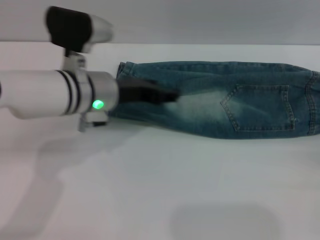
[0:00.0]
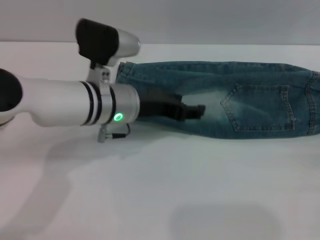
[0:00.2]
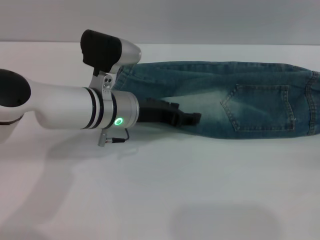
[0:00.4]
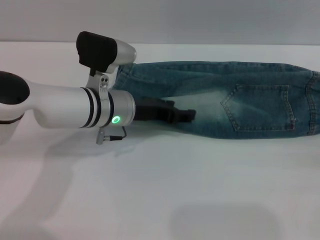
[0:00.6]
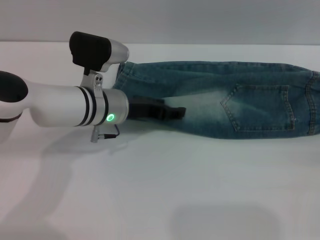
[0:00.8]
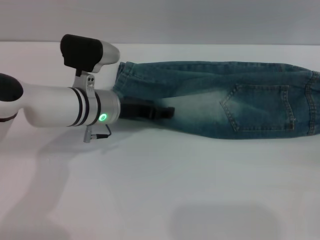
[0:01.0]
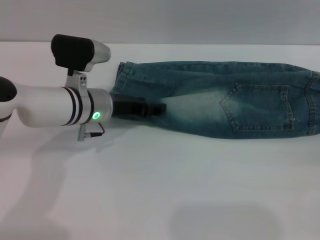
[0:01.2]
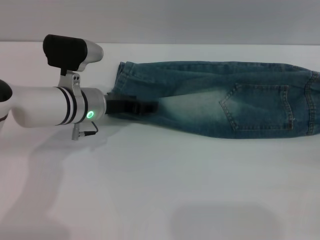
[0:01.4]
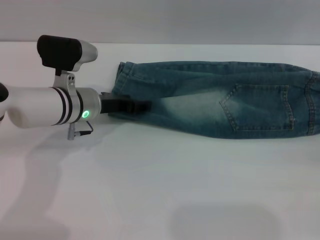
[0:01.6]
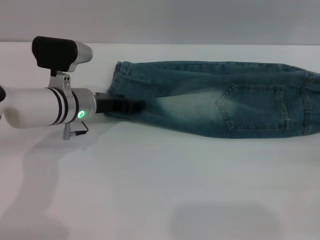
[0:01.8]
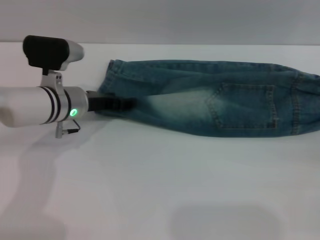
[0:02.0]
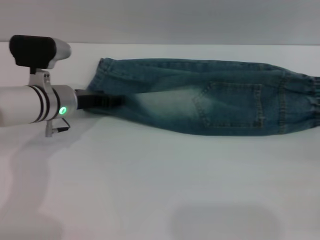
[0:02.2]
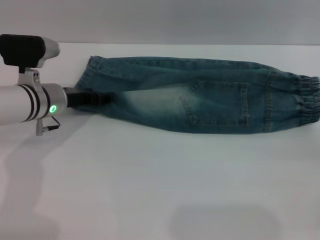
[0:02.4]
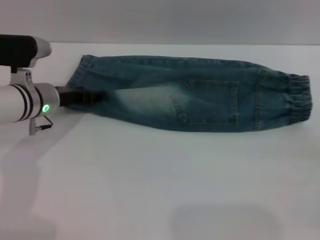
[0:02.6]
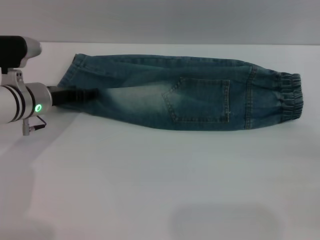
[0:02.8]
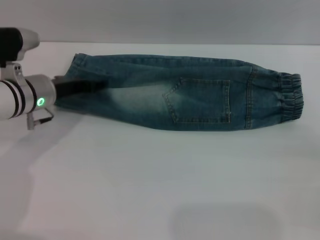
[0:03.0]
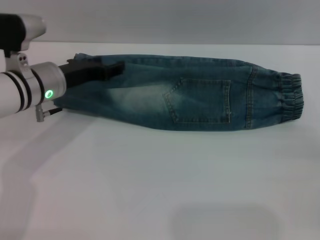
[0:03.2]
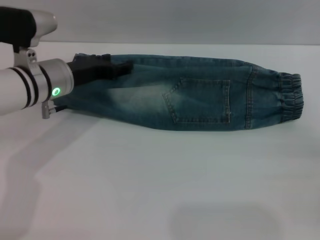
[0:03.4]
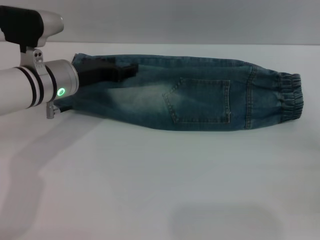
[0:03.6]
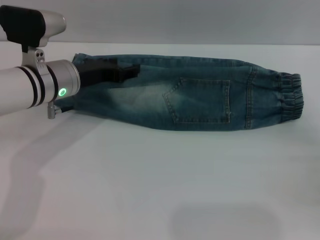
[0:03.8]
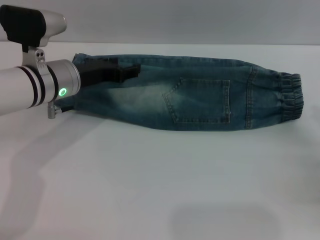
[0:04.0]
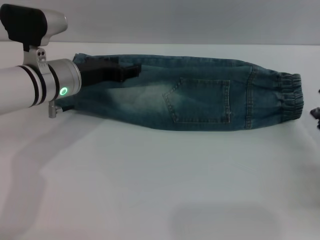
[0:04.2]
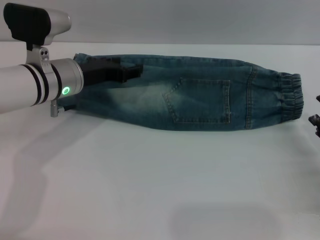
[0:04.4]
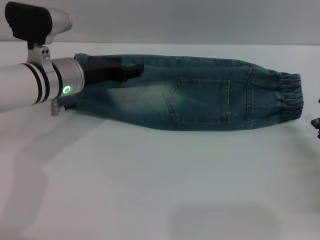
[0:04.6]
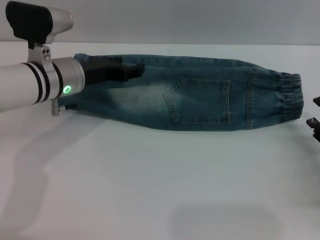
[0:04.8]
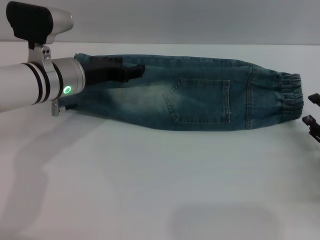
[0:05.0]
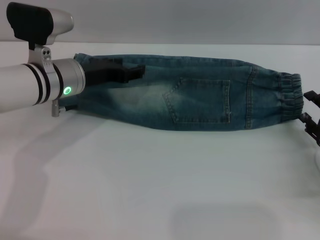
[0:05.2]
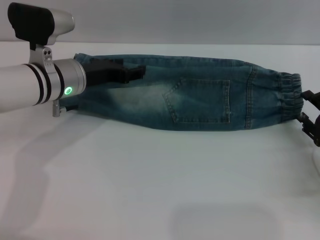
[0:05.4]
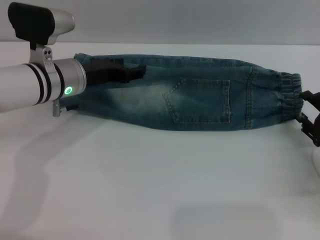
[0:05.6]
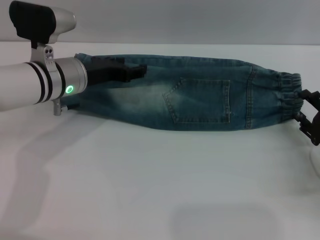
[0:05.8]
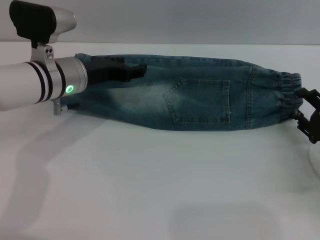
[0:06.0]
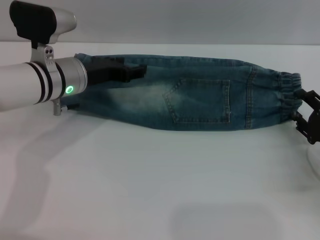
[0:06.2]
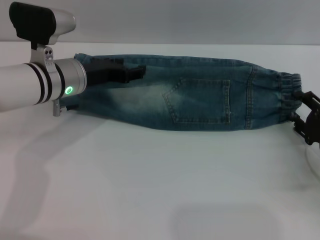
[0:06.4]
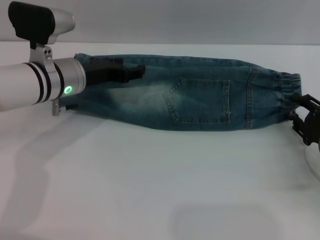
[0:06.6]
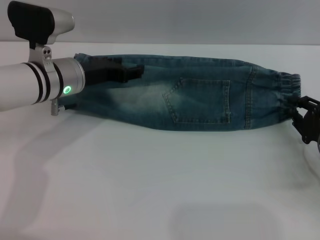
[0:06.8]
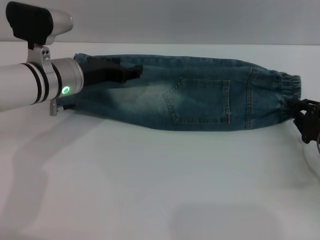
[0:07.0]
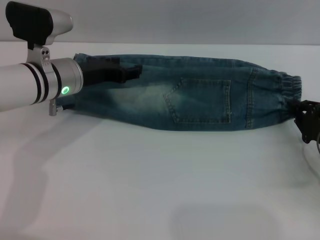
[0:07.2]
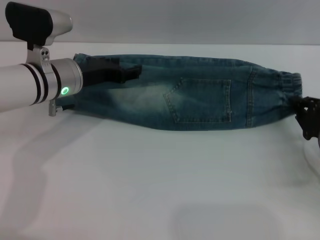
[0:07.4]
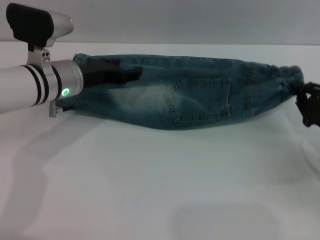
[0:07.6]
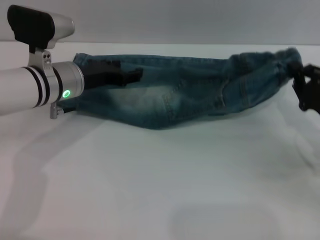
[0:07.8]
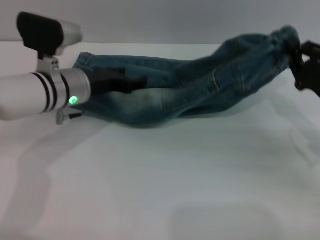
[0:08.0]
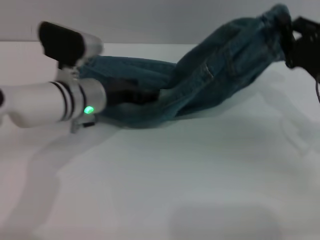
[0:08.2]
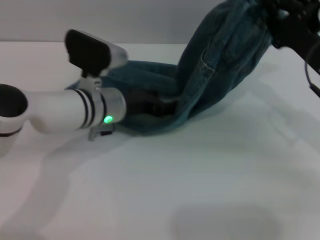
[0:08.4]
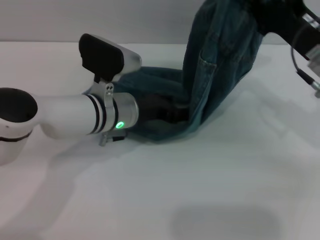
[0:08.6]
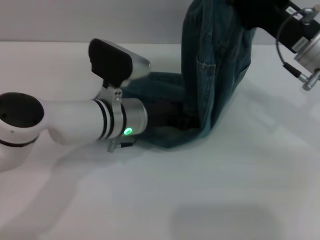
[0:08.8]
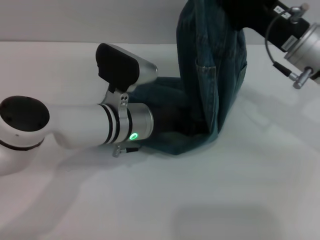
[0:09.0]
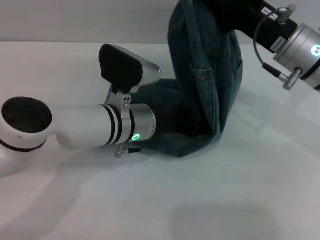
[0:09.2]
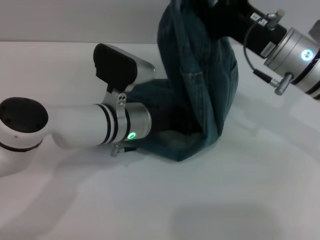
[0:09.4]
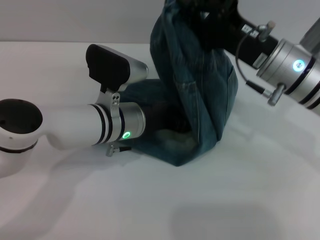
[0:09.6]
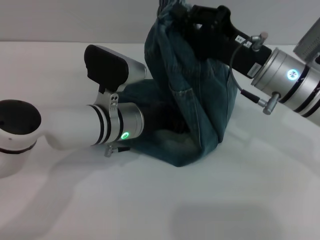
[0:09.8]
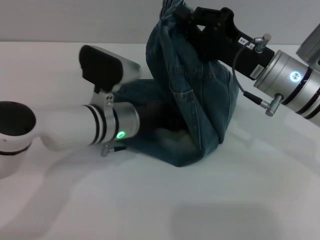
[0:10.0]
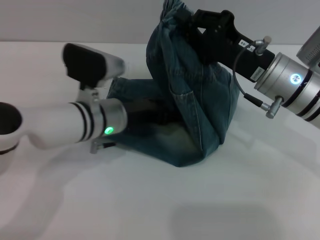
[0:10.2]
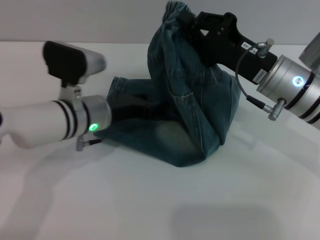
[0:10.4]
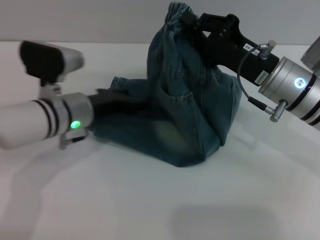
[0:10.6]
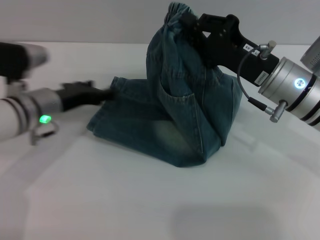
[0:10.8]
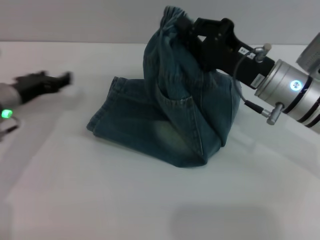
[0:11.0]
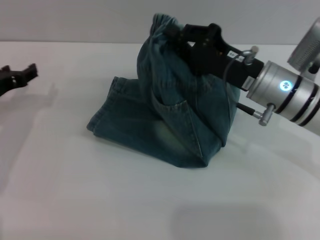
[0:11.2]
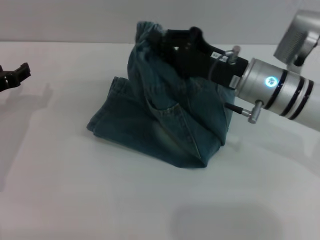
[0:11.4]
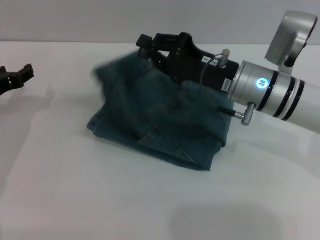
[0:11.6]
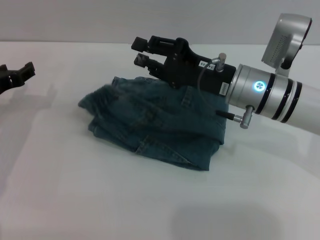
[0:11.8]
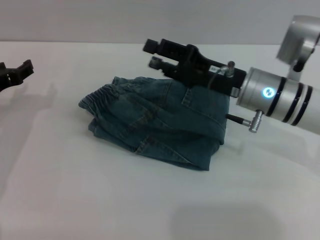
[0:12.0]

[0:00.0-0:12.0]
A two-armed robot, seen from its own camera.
Step, 0:00.0 to 0:11.8: Fold the pants from right to left with the right gripper.
0:00.0 to 0:01.6: The left gripper moves downward, some 5 cm.
0:01.6 to 0:03.0: The left gripper travels to the left by roughly 5 cm.
0:03.0 to 0:04.4: The right gripper moves to the left, roughly 5 cm. Meanwhile the left gripper shifts by about 5 cm.
0:04.4 to 0:06.0: The grippers make only small movements.
0:06.0 to 0:07.6: The right gripper closes.
0:07.6 to 0:09.0: The left gripper travels to the right by about 10 cm. The right gripper goes approximately 20 cm upward, to the left and forward.
0:09.0 to 0:10.4: The left gripper heads to the left, covering about 5 cm.
0:10.4 to 0:12.0: The left gripper travels to the left by approximately 15 cm, while the right gripper opens its fingers.

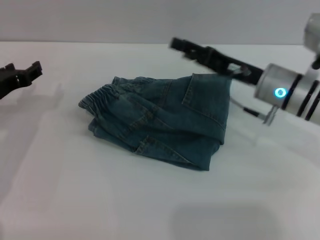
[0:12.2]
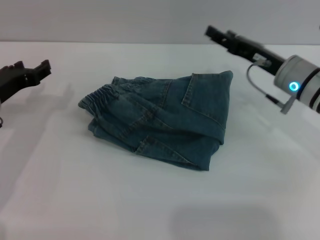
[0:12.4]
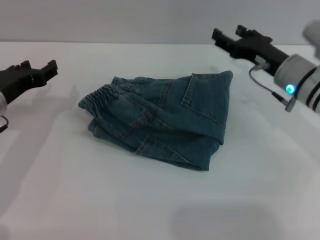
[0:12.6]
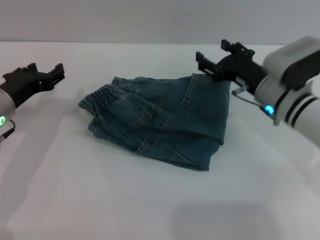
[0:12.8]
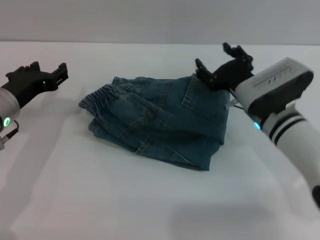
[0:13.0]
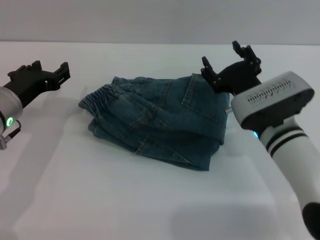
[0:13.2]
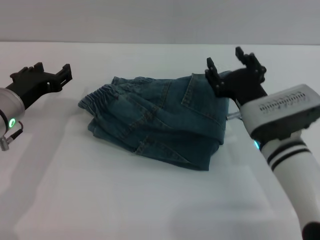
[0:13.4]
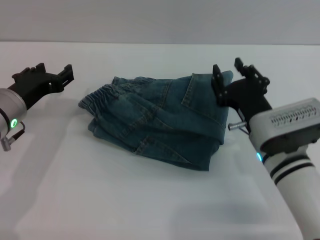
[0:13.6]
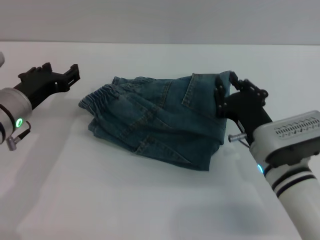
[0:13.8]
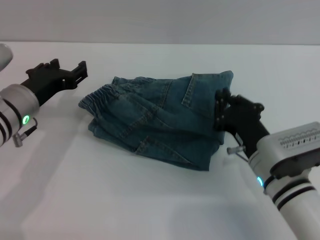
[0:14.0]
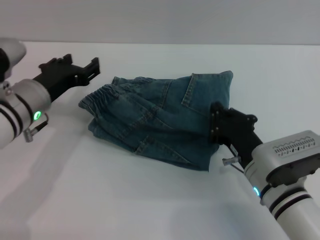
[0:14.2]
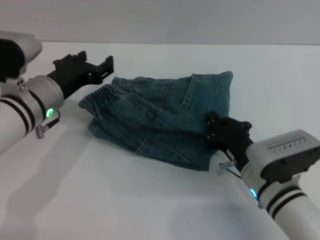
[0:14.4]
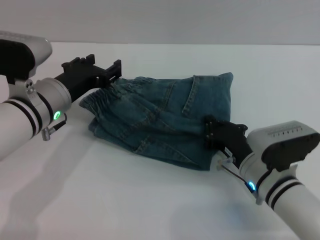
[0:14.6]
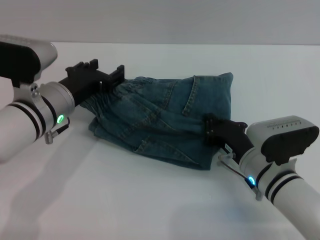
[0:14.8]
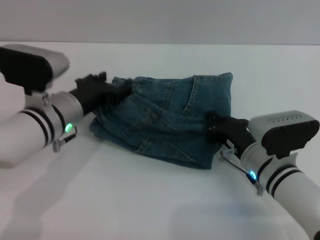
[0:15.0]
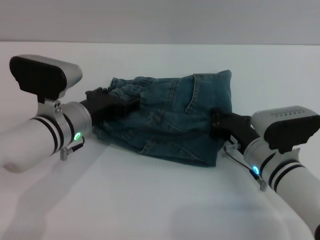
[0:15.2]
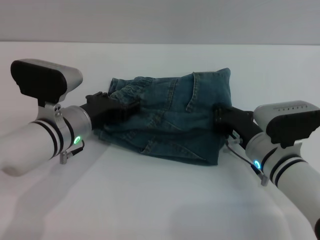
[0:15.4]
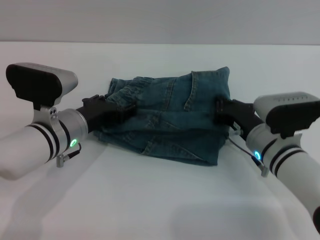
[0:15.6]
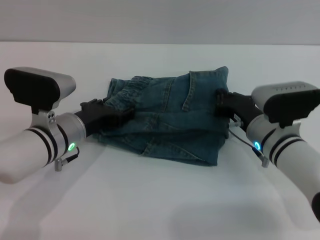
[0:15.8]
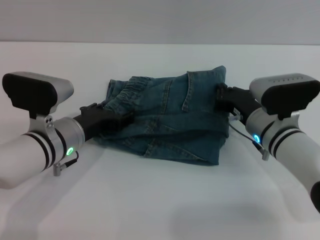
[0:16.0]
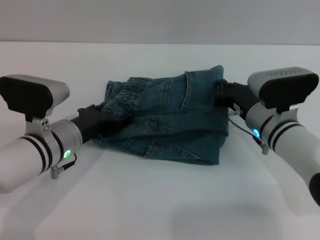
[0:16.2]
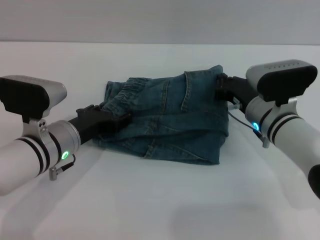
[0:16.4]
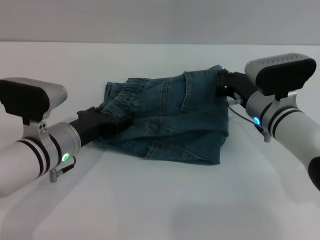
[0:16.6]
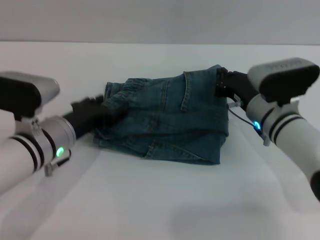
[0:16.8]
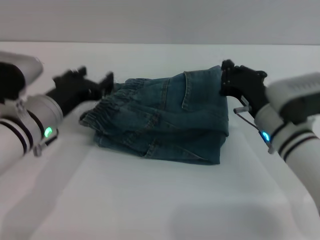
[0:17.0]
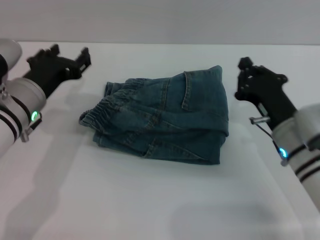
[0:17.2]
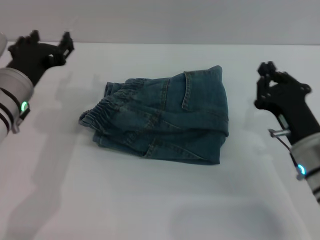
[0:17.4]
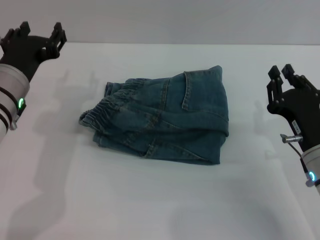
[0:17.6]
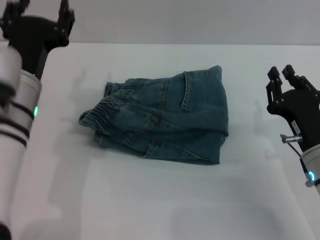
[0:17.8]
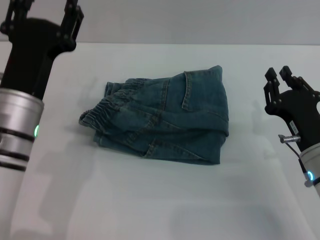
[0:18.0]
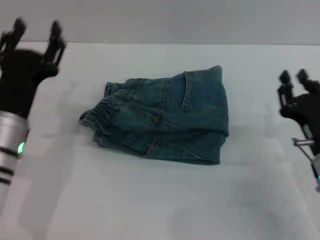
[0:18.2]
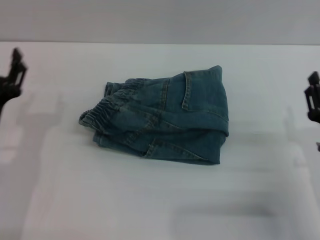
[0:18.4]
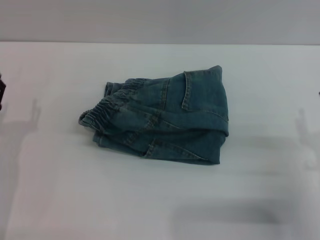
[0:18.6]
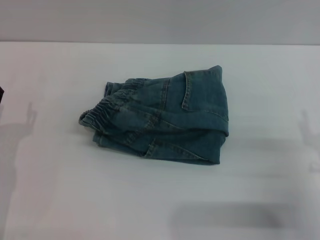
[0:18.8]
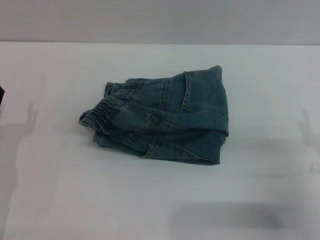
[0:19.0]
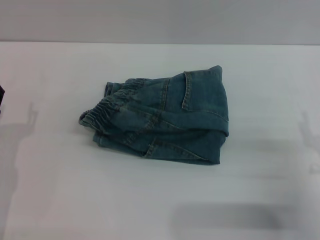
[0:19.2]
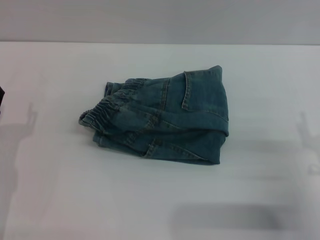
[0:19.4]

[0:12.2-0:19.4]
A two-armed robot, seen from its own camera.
0:12.2 to 0:13.6: The left gripper moves to the right, roughly 5 cm. Meanwhile the right gripper moves backward, roughly 10 cm.
0:13.6 to 0:15.0: The right gripper closes its fingers. Meanwhile the left gripper travels to the right by roughly 5 cm.
0:15.0 to 0:16.6: The right gripper goes roughly 10 cm forward.
0:16.6 to 0:18.0: The left gripper shifts about 5 cm upward. Meanwhile the right gripper shifts approximately 15 cm backward and to the right.
0:18.0 to 0:19.4: The right gripper travels to the right by roughly 5 cm, and opens. Meanwhile the left gripper goes some 15 cm to the left and downward.
